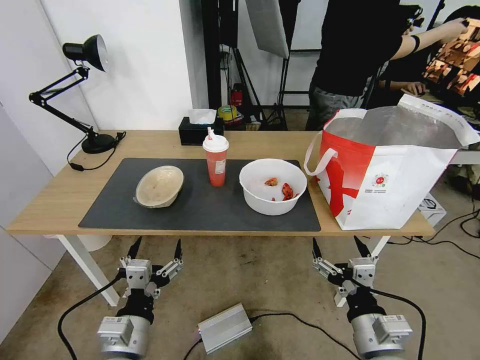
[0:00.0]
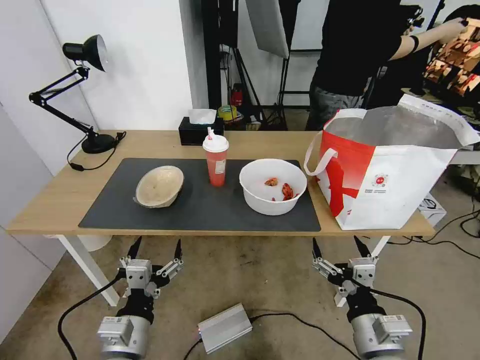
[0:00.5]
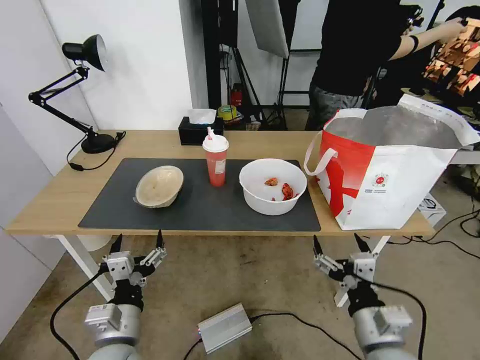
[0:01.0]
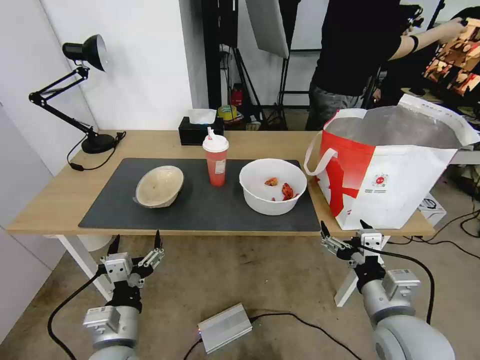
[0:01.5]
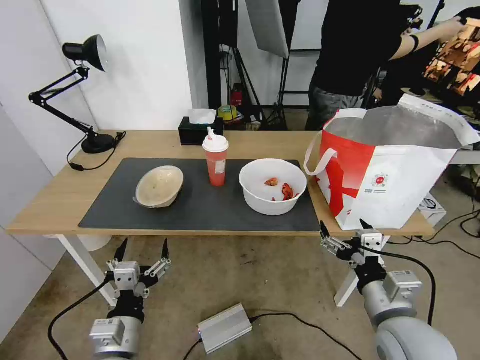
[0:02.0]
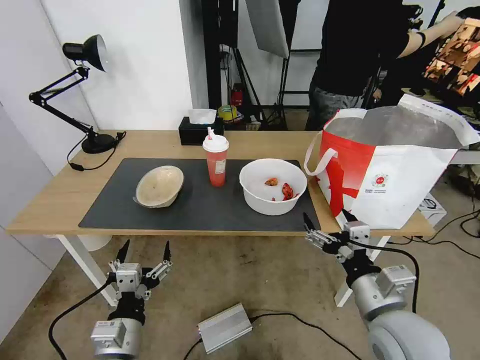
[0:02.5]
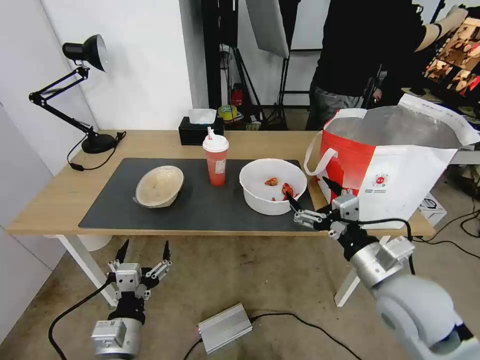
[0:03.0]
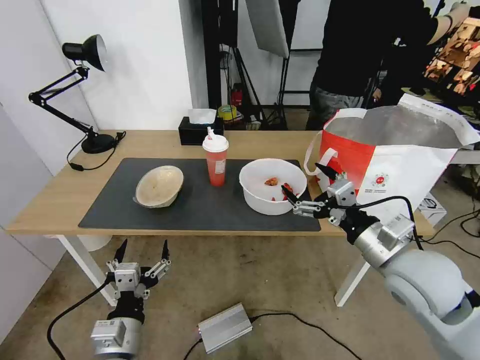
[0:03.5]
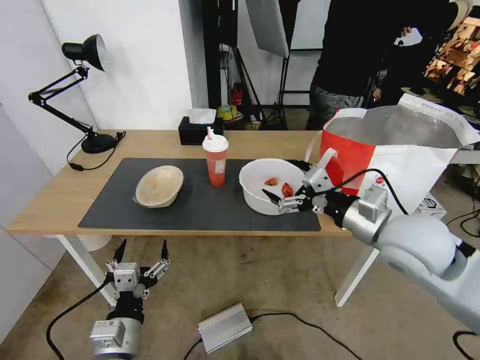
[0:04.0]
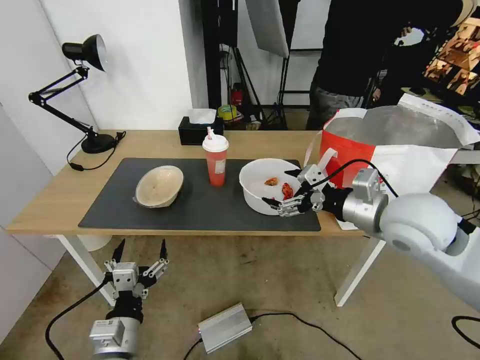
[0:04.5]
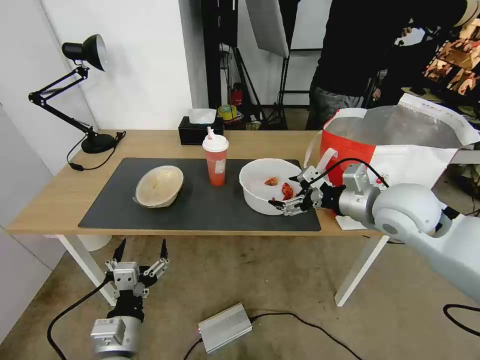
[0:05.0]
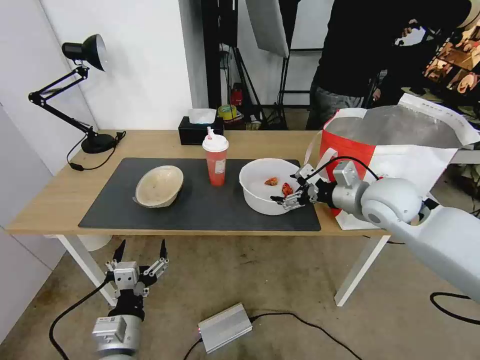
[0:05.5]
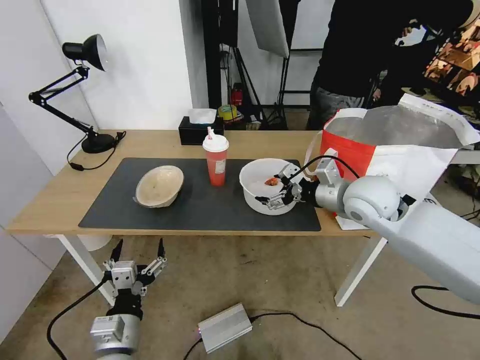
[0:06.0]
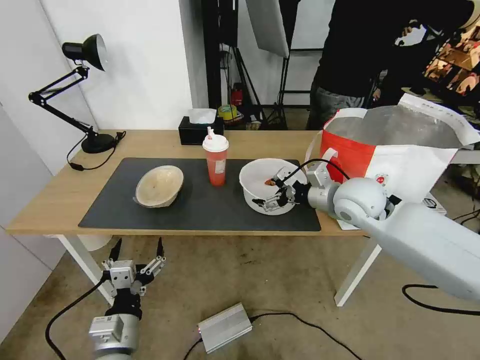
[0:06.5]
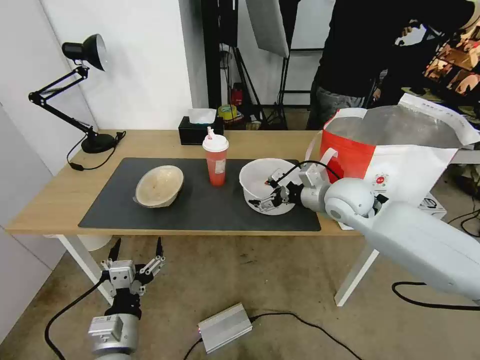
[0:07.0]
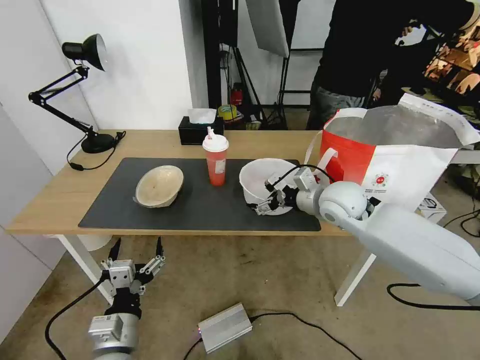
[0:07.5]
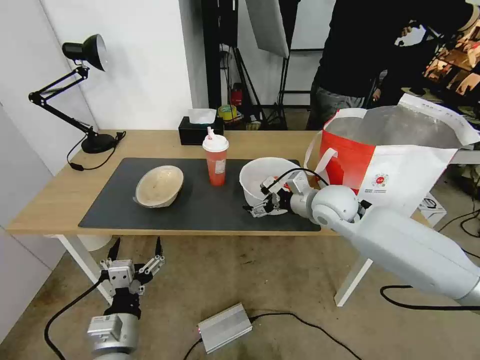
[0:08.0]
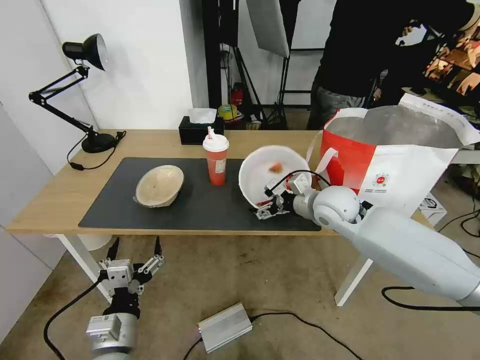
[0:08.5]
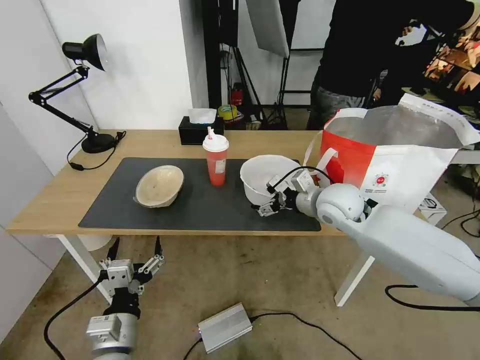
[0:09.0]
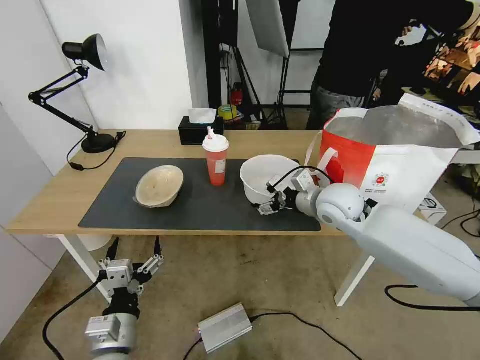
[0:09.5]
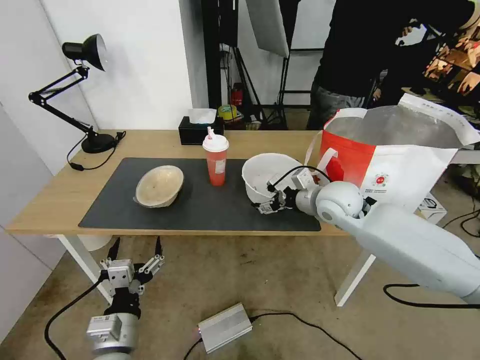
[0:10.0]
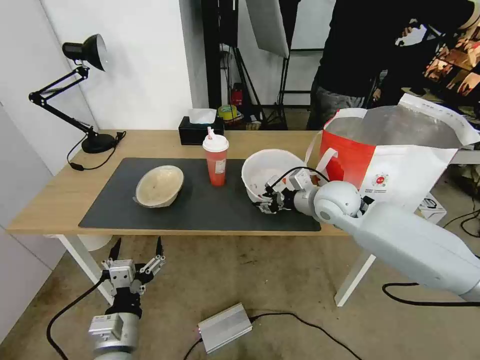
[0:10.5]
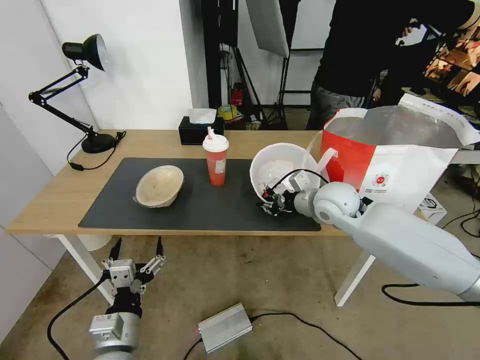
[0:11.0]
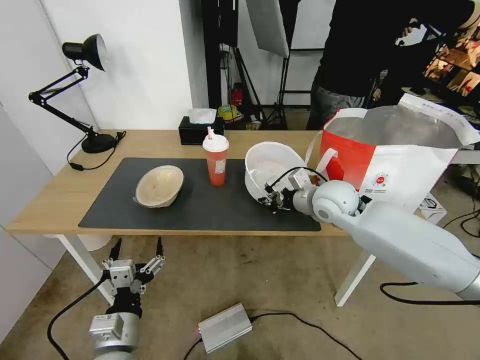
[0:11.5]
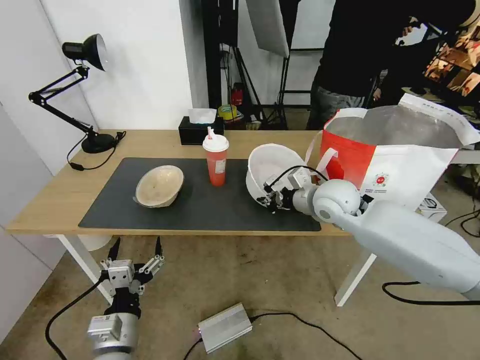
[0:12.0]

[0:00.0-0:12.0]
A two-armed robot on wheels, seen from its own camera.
Task of the whole recording: Pick up the trash from the table and place it into the takeout bag.
0:02.0 to 0:04.0: The right gripper moves forward and upward, approximately 15 cm.
0:04.0 to 0:06.0: The right gripper shifts about 10 cm forward.
0:06.0 to 0:08.0: The right gripper moves downward, about 5 cm.
0:08.0 to 0:10.0: There are only small adjustments of the grippers.
0:10.0 to 0:12.0: The right gripper closes.

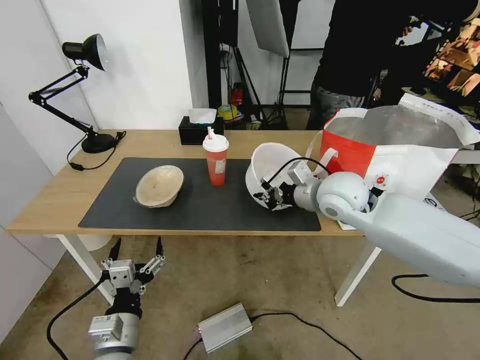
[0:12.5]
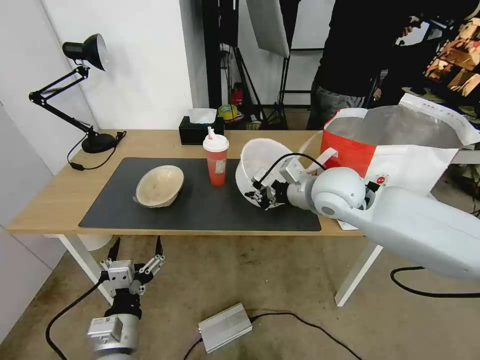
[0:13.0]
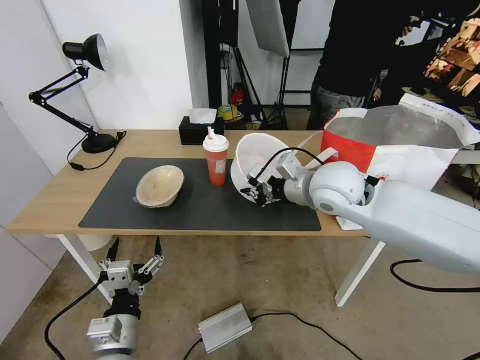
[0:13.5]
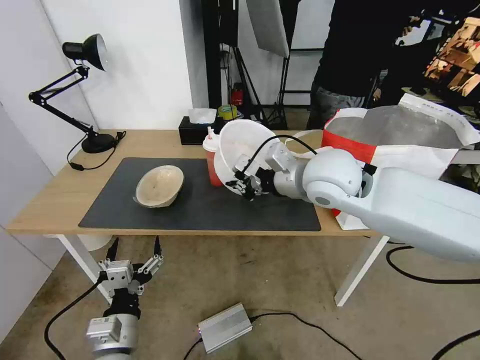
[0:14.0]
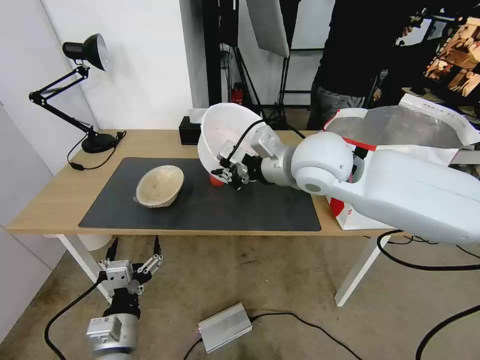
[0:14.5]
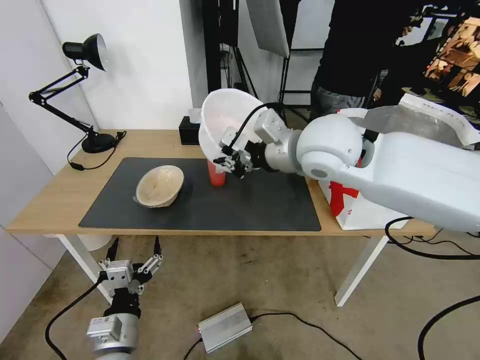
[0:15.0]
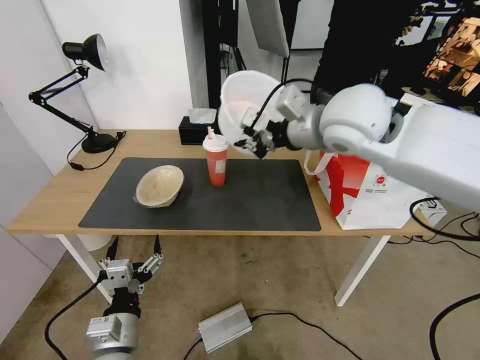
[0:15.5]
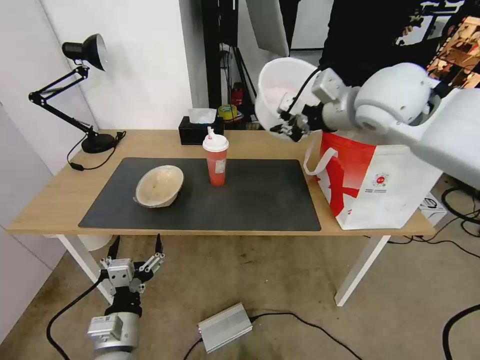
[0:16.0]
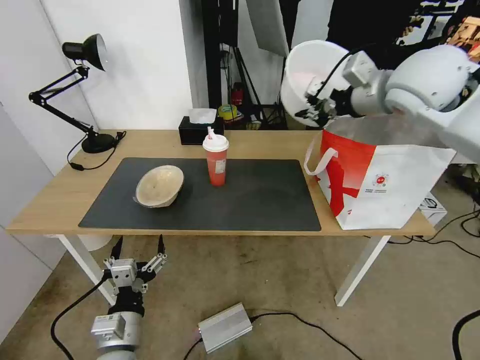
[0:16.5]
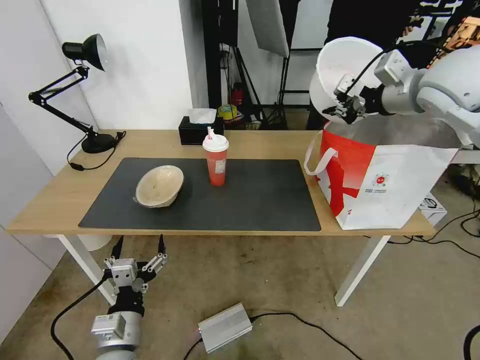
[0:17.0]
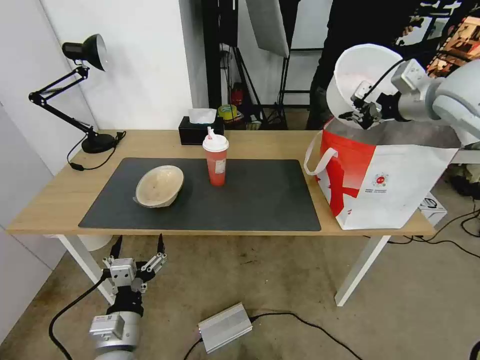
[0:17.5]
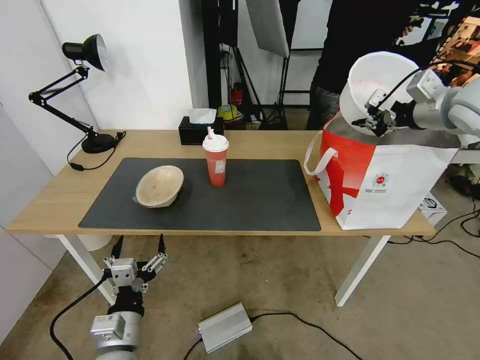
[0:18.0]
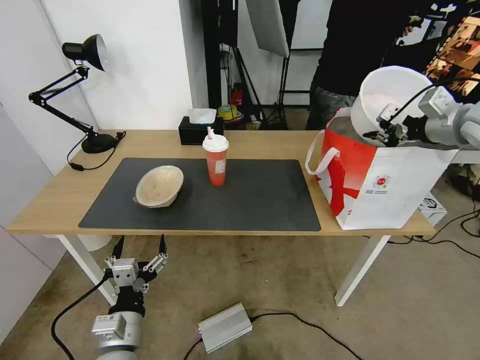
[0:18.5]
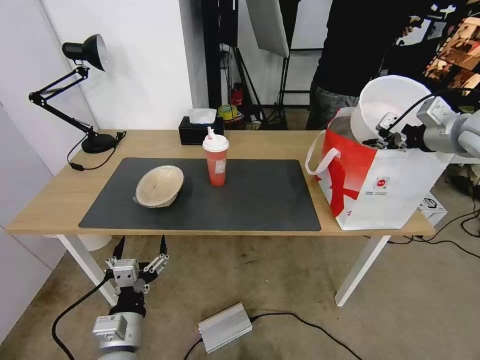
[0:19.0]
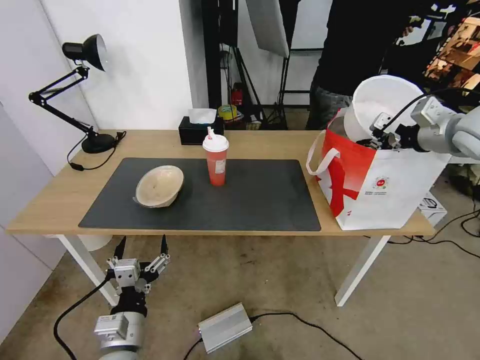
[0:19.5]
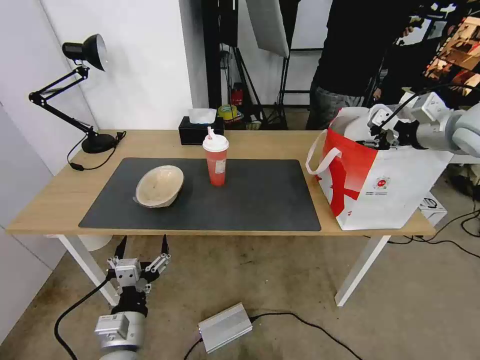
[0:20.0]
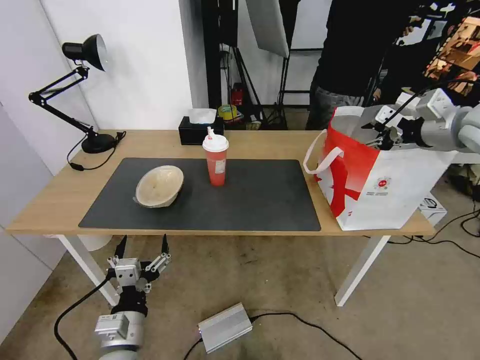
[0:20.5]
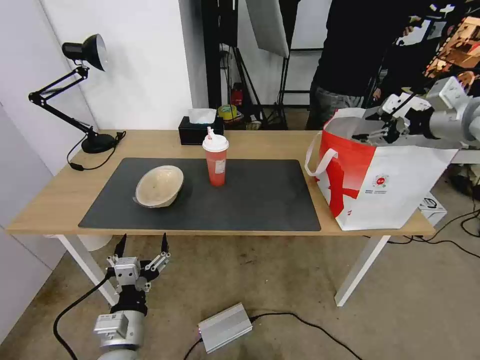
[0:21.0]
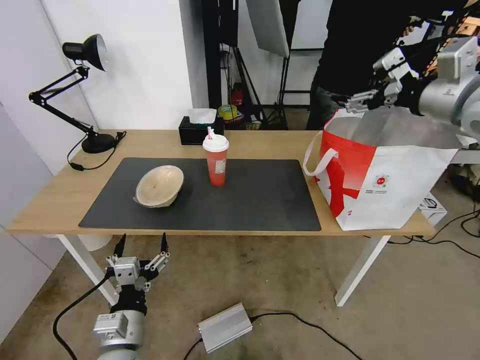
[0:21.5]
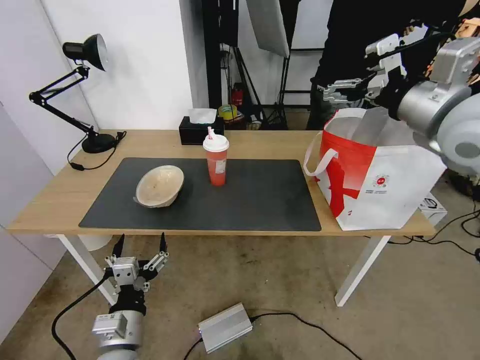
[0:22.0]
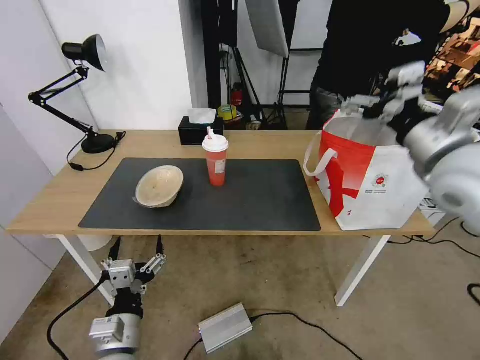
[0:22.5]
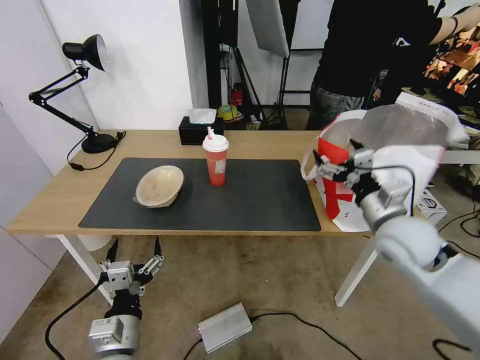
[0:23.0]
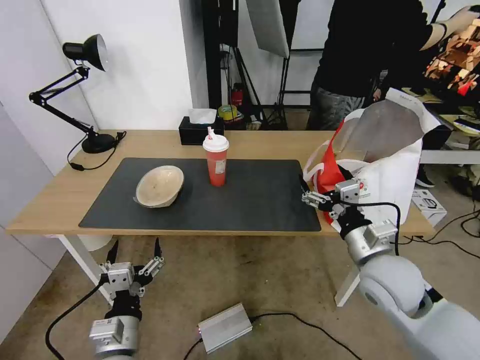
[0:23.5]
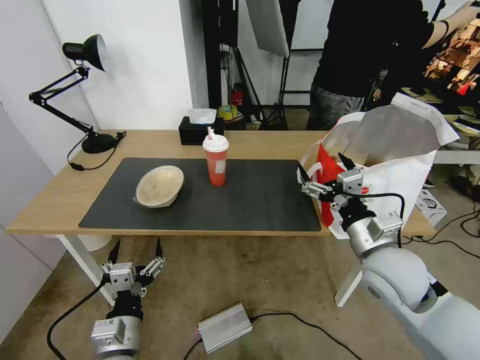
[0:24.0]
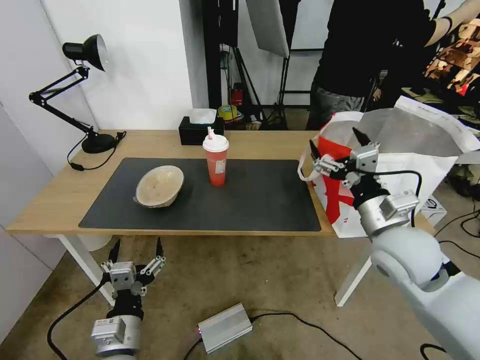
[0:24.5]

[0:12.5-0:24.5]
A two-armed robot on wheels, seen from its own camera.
Task of the whole recording: Pick up the trash from the table and place it into the takeout bag.
0:12.5 to 0:14.5: The right gripper is displaced upward and to the left by some 15 cm.
0:14.5 to 0:16.5: The right gripper is displaced to the right, upward and forward by roughly 20 cm.
0:16.5 to 0:18.5: The right gripper is displaced to the right by approximately 15 cm.
0:18.5 to 0:20.5: The right gripper opens its fingers.
0:20.5 to 0:22.5: The right gripper goes some 15 cm to the left and backward.
0:22.5 to 0:24.5: The right gripper shifts approximately 15 cm downward.

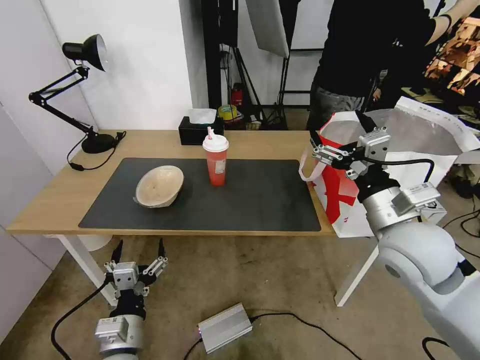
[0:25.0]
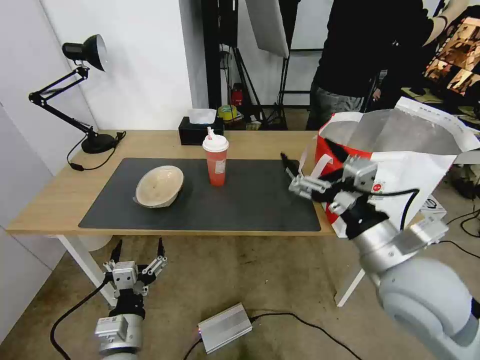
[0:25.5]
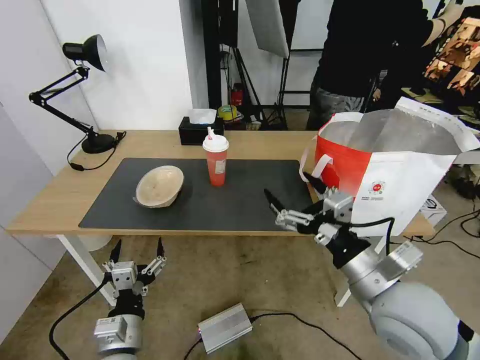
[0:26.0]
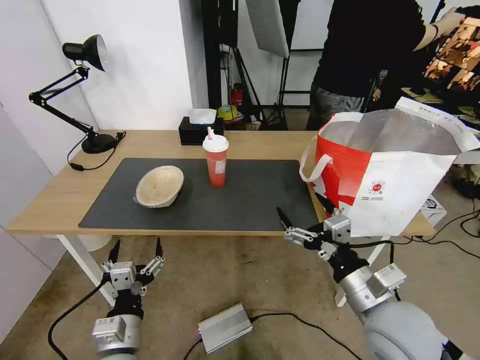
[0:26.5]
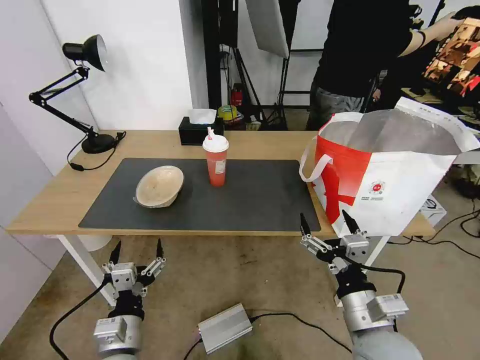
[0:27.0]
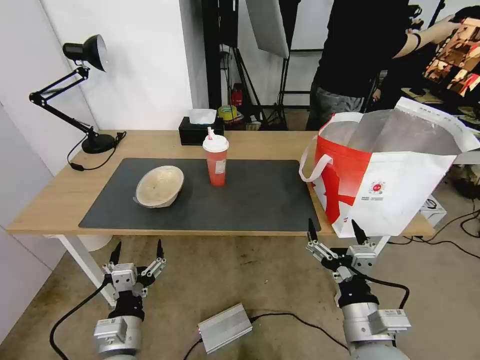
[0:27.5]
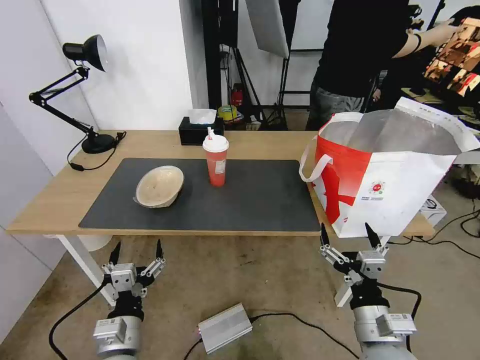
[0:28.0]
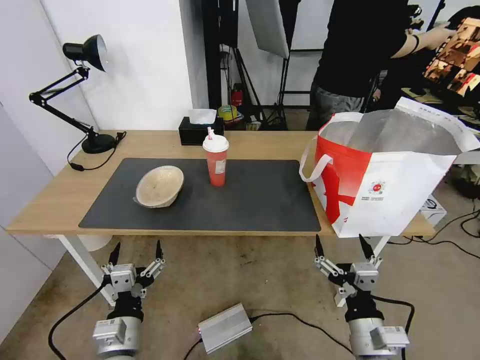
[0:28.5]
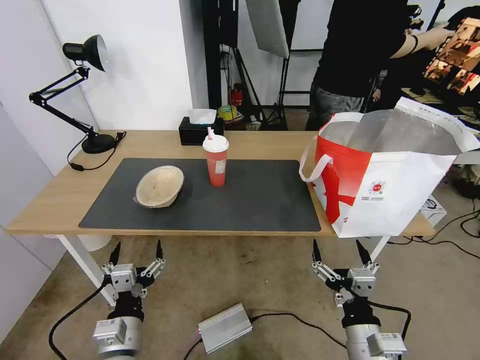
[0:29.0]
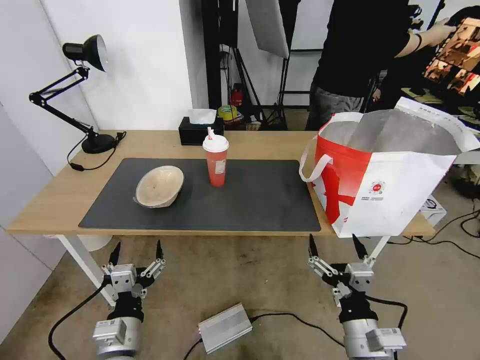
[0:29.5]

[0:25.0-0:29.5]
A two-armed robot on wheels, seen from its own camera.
Task of the whole recording: Pick up the trash from the table and place it into the takeout bag.
0:25.0 to 0:27.0: The right gripper is displaced backward and downward by some 20 cm.
0:27.0 to 0:29.5: The right gripper ends up some 5 cm from where it was.
